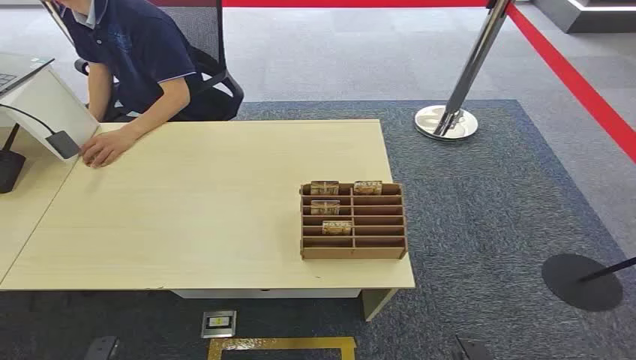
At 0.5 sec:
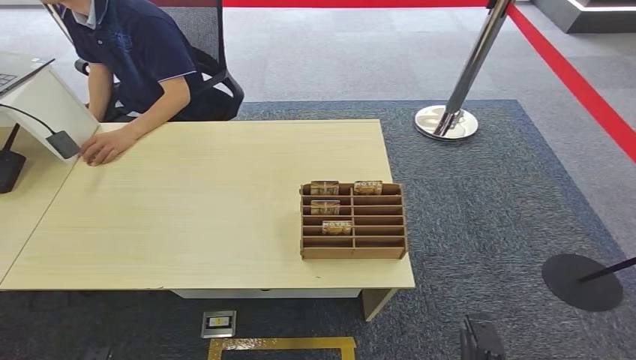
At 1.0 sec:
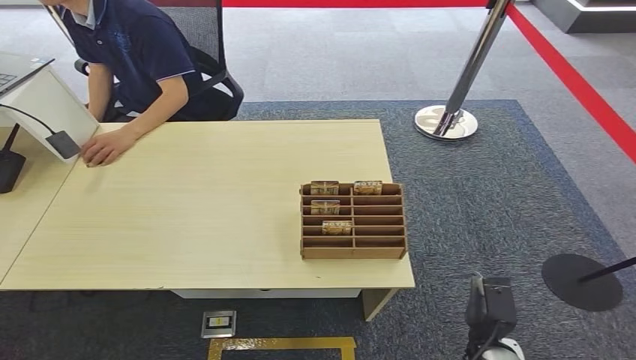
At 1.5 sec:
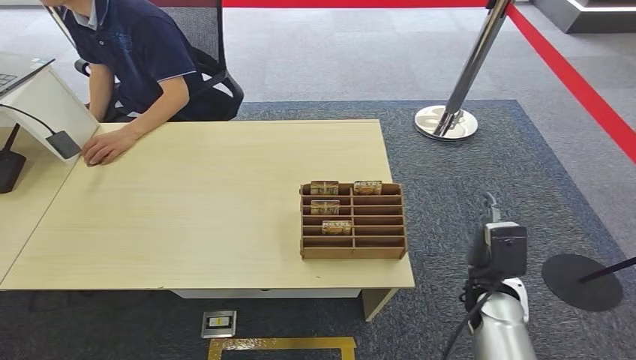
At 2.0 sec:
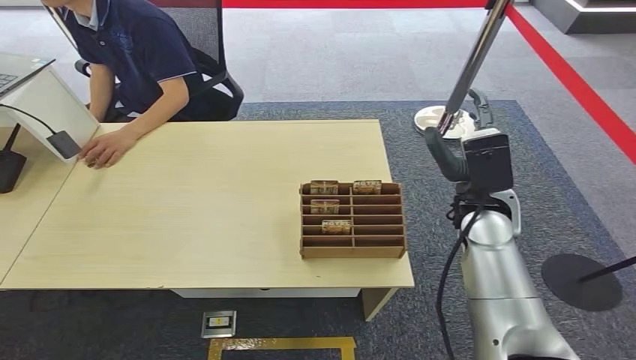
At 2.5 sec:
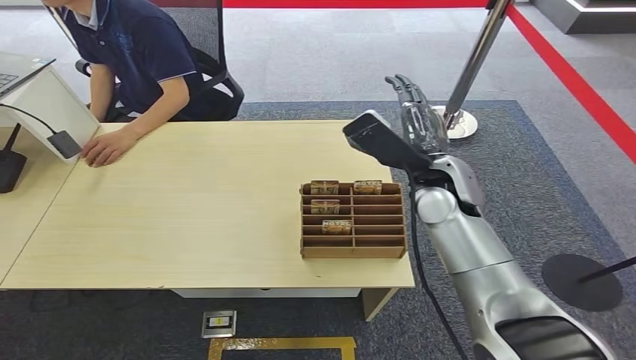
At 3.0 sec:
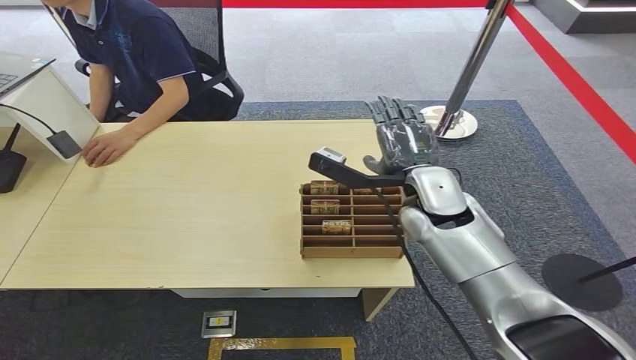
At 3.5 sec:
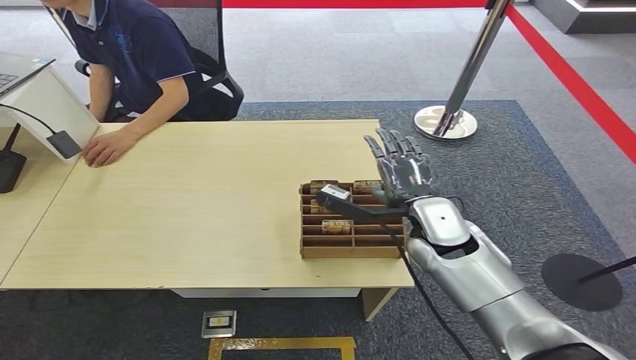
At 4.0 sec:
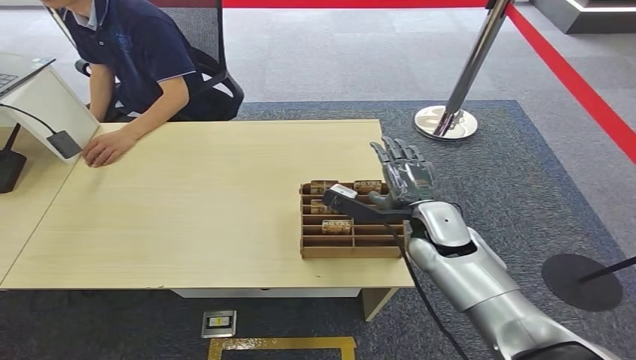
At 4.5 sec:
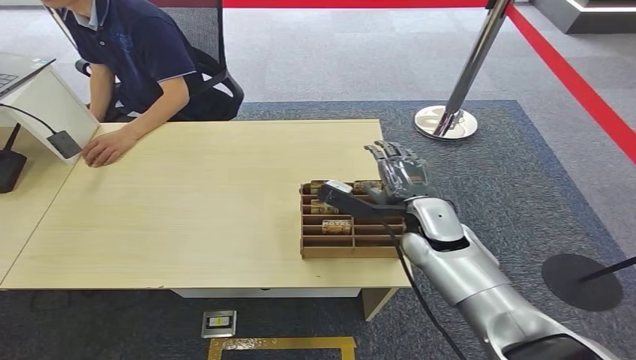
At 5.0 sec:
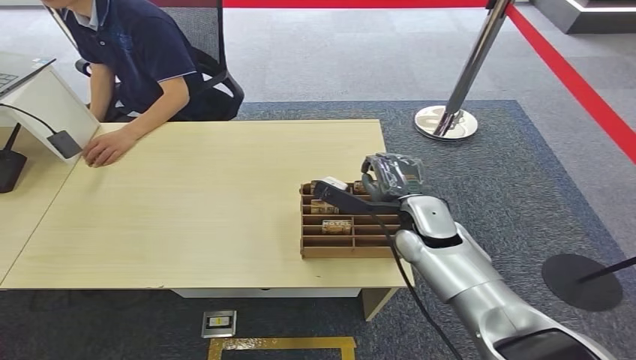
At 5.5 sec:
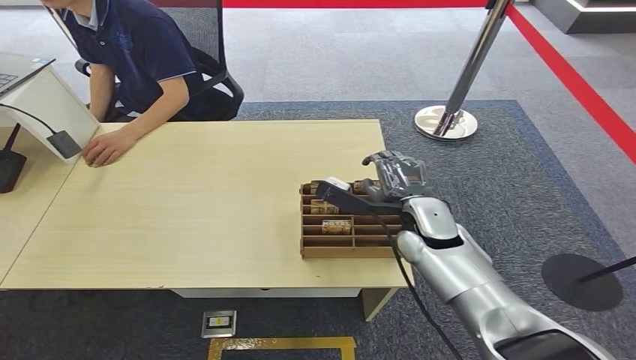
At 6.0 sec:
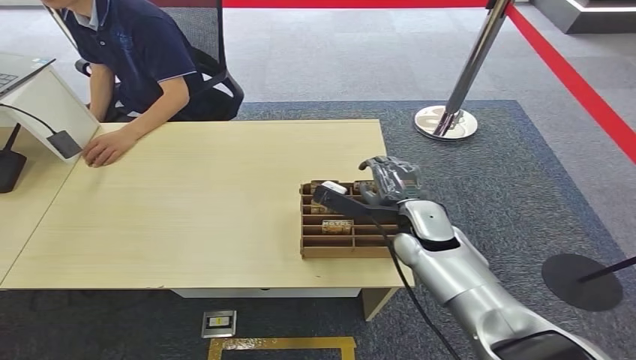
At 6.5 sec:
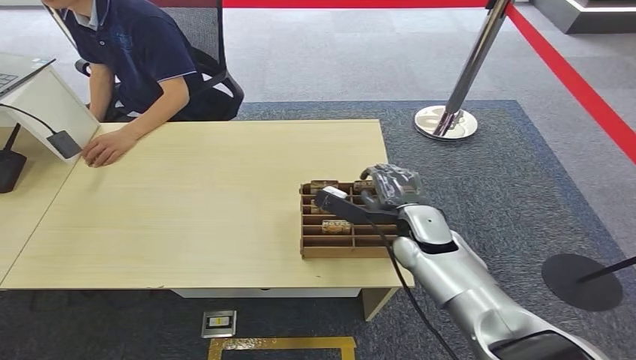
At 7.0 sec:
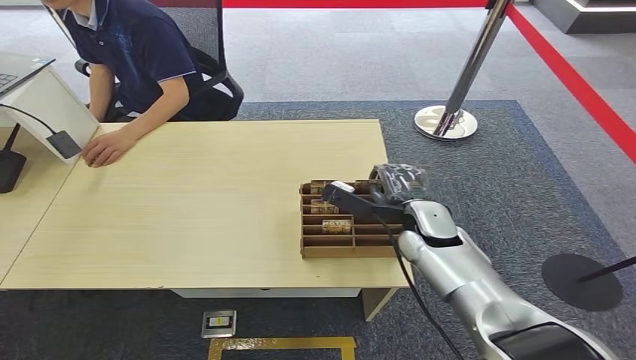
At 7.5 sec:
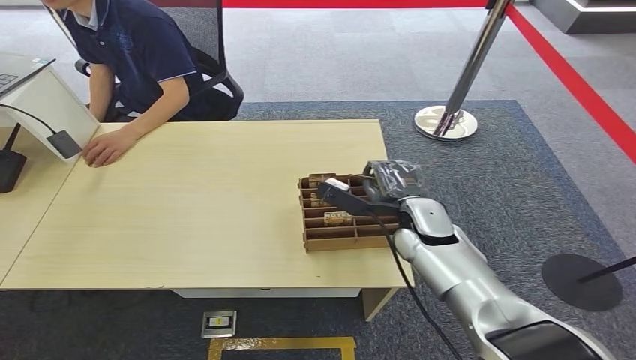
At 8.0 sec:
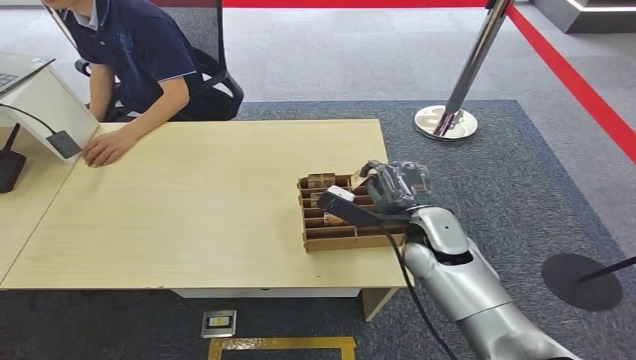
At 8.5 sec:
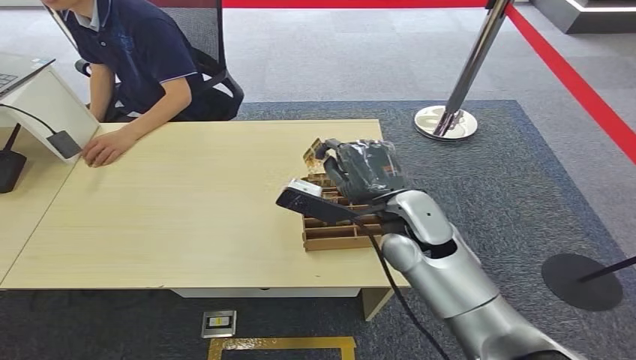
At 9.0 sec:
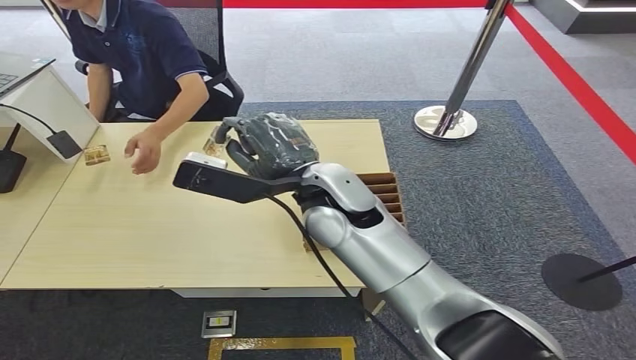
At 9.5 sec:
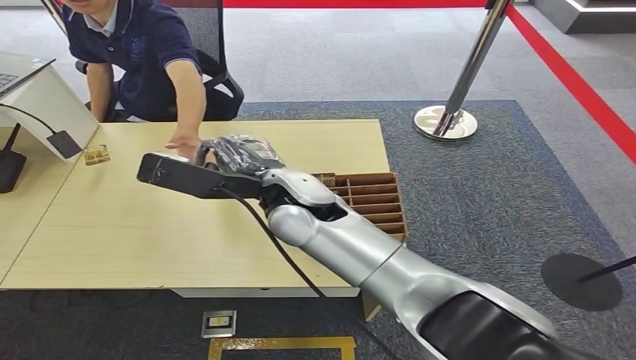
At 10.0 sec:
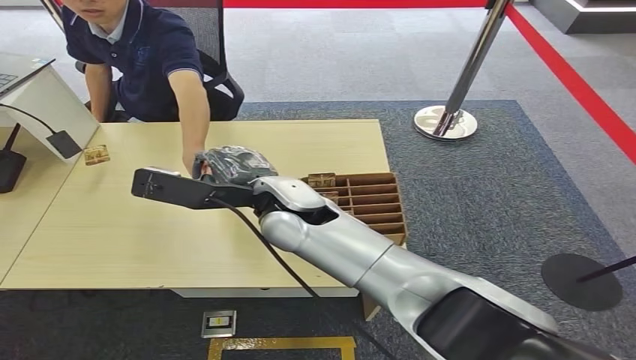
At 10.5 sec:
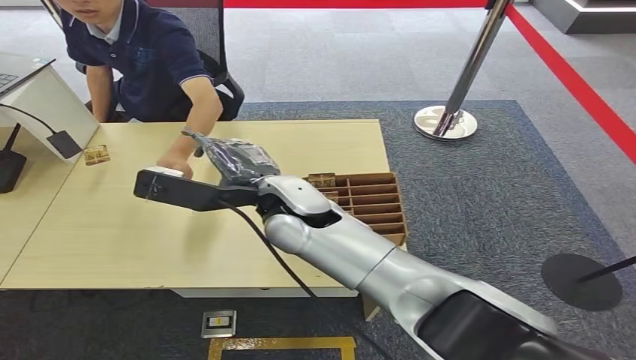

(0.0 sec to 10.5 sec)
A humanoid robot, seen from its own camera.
Step, 0.0 sec - 8.0 sec: Pick up the key card from the card box.
Step, 8.5 sec - 10.5 sec: Hand the key card to the target.
2.0 sec - 4.0 sec: The right hand shifts some 5 cm downward.
4.0 sec - 6.5 sec: There are only small adjustments of the hands.
6.5 sec - 8.5 sec: The right hand travels upward by about 10 cm.
8.5 sec - 10.5 sec: The right hand travels to the left by approximately 15 cm.
